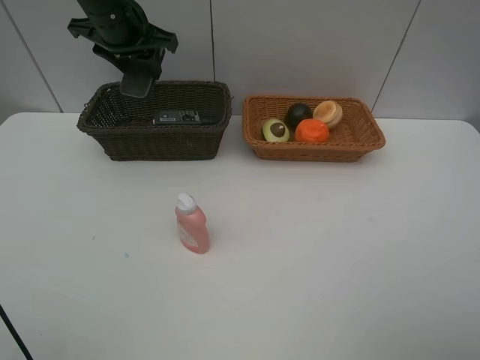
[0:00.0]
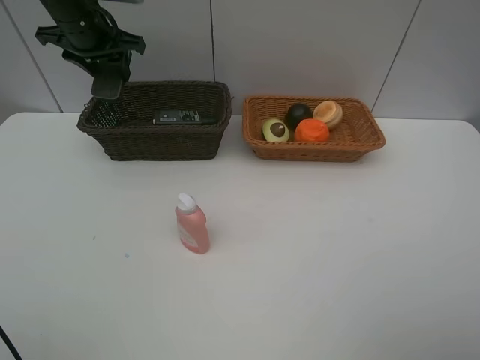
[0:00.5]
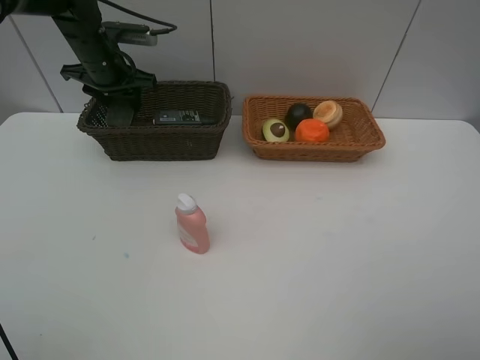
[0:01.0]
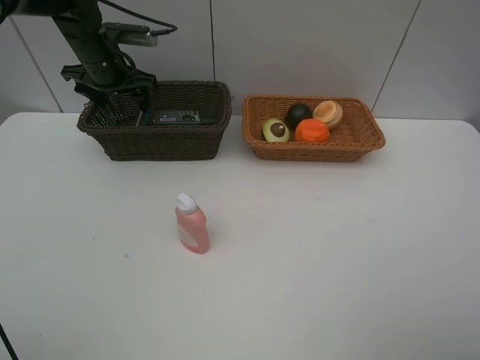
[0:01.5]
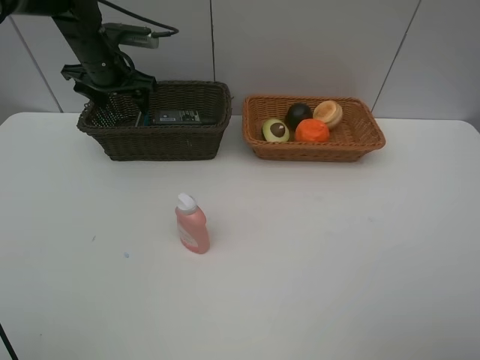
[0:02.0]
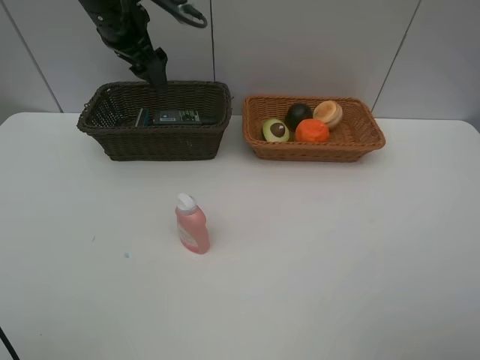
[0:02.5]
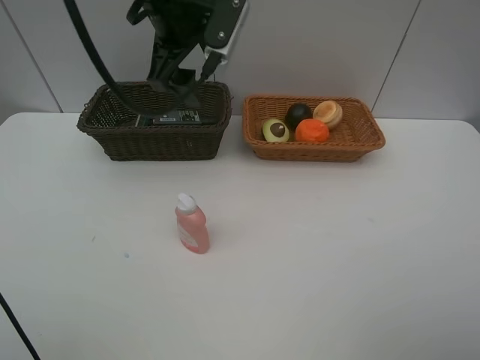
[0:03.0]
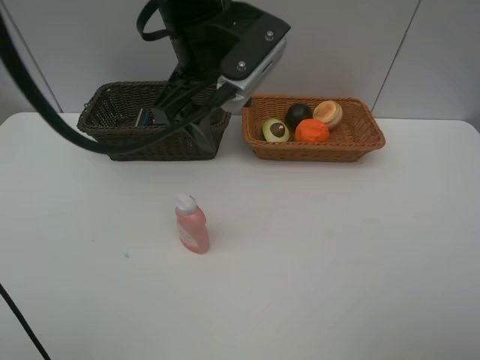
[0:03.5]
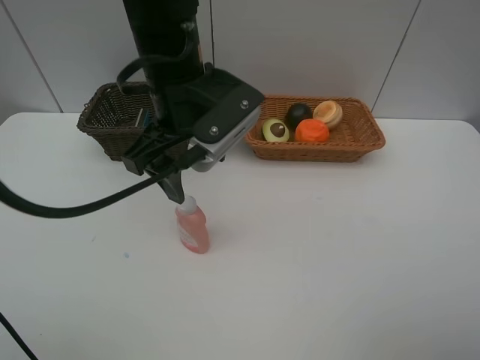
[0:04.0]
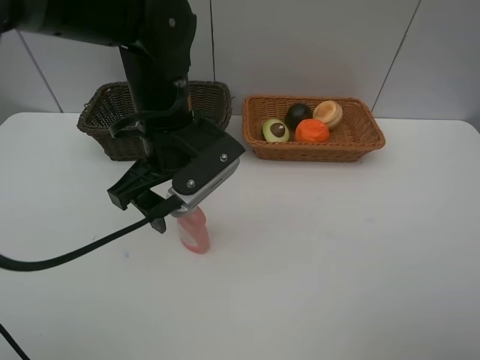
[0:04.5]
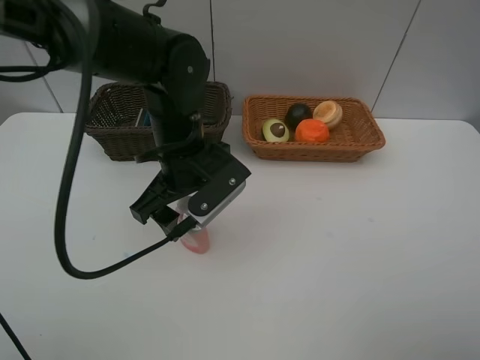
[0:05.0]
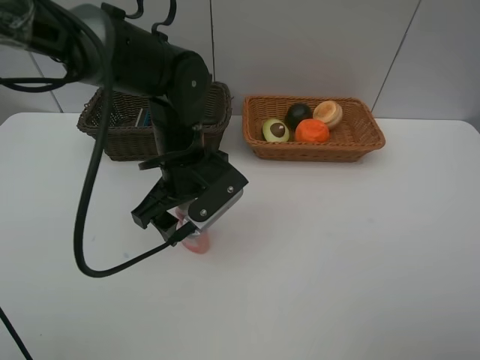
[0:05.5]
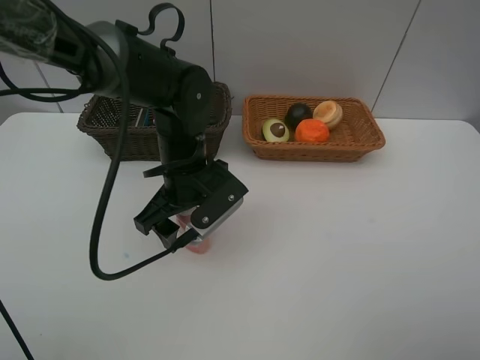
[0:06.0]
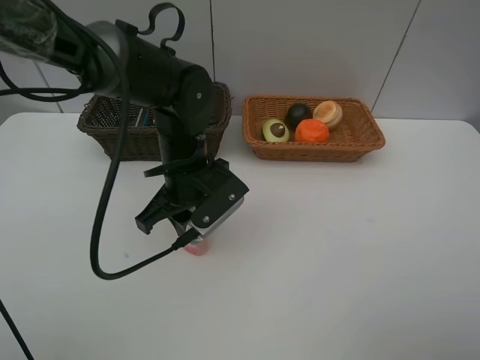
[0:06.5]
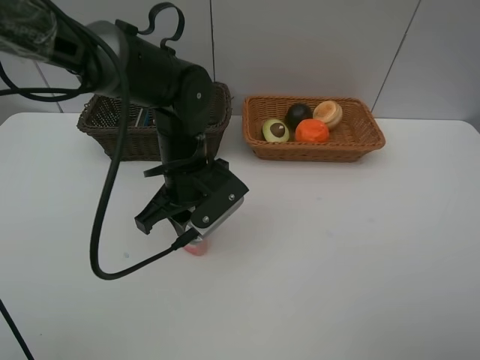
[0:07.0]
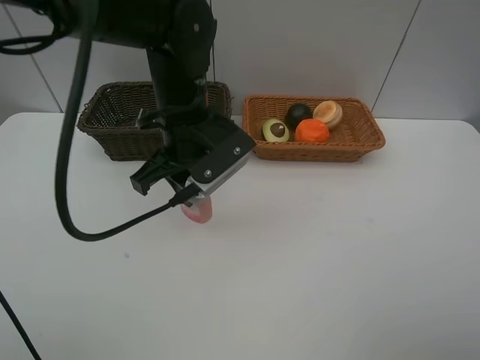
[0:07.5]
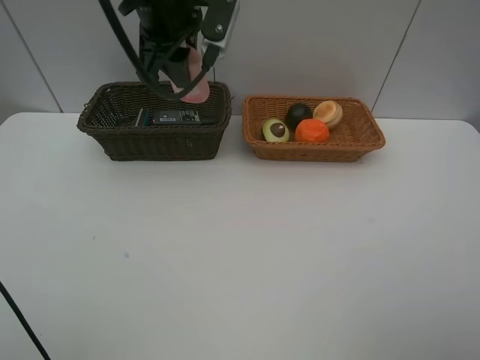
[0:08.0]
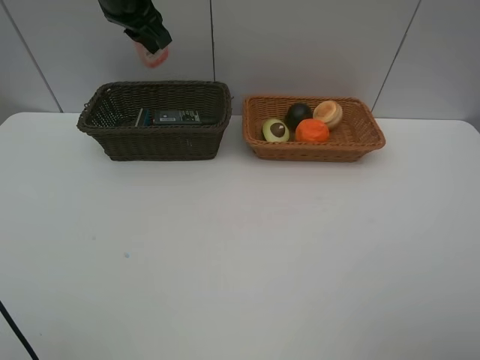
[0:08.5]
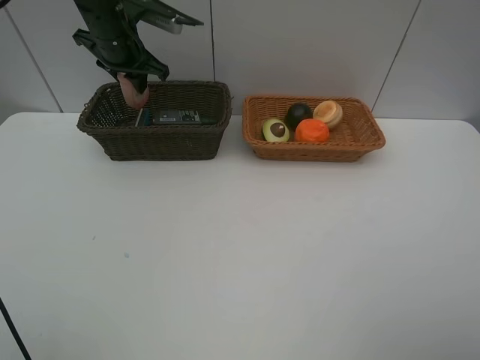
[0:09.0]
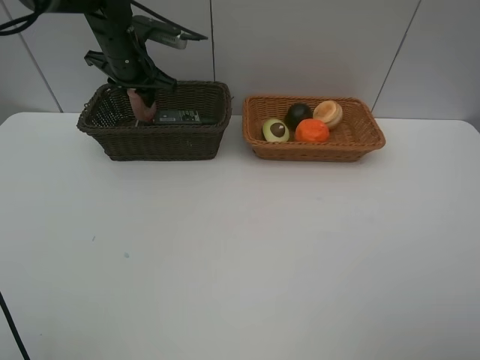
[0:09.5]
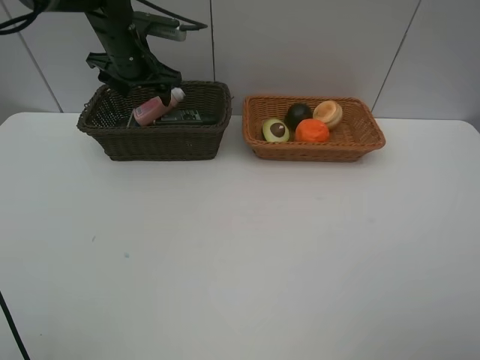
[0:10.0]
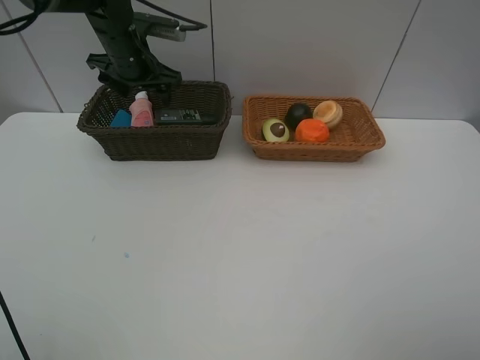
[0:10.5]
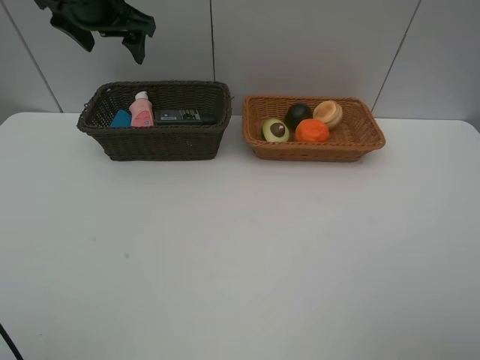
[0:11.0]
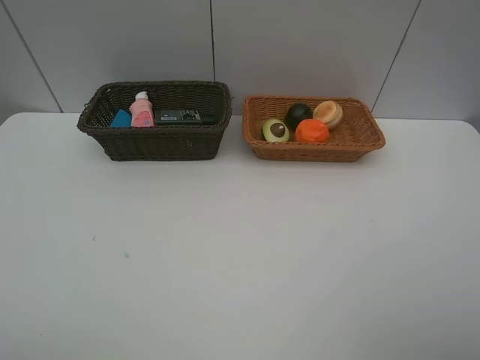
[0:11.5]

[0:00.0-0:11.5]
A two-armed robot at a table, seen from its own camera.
Task of the whole recording: Place multiple objects separately in different baskets.
Step, 0:00.0 to 0:02.0: Place the blackboard eraser in the dark basket with left gripper.
Step, 0:02.5 to 0:07.0: Pick up the laundry detergent with left gripper.
Step, 0:07.5 to 0:10.0: Place the laundry detergent in the dark basket with left gripper.
0:00.0 to 0:02.0: The left gripper moves downward and to the left, about 10 cm, and opens its fingers.
0:02.0 to 0:04.0: The left gripper travels backward and to the right by roughly 25 cm.
0:04.0 to 0:06.0: The left gripper shifts some 10 cm downward.
0:06.0 to 0:07.5: The left gripper heads upward, covering about 10 cm, and closes.
0:07.5 to 0:09.5: The left gripper heads forward and to the left, covering approximately 20 cm.
0:09.5 to 0:11.5: The left gripper is displaced upward and backward by approximately 35 cm, and opens.

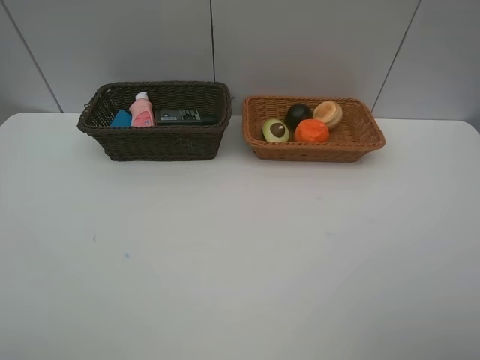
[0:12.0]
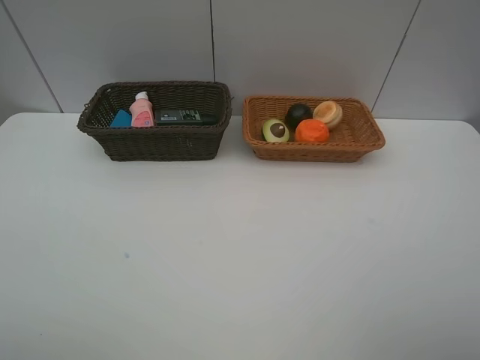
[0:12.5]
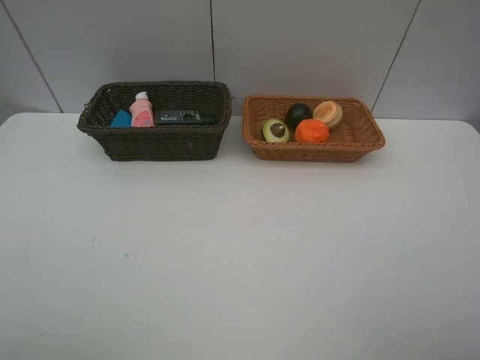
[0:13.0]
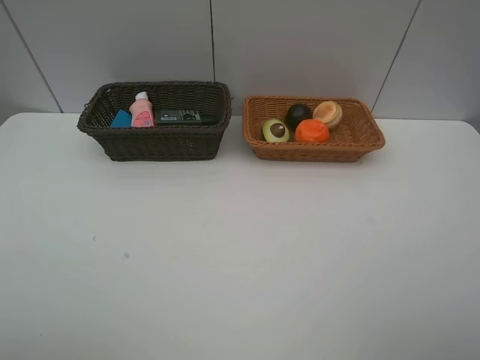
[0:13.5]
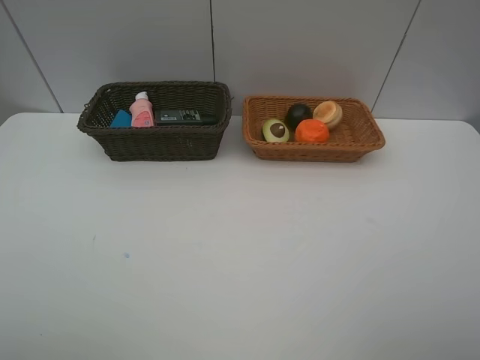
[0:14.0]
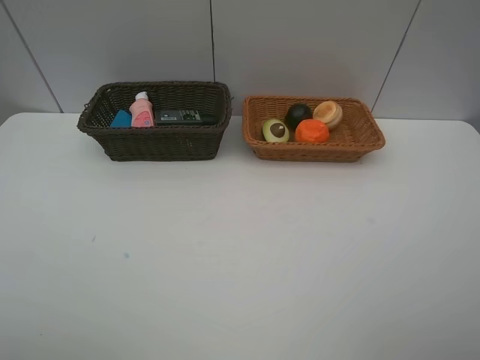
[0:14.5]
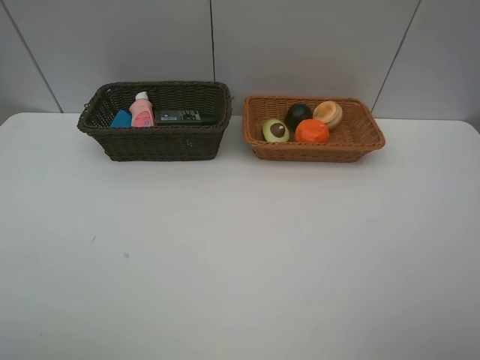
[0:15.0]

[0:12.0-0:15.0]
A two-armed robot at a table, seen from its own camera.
Task of the whole recording: Place multiple objects separately in different baskets.
0:13.5 to 0:15.0: Neither gripper changes place.
